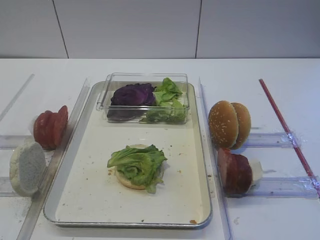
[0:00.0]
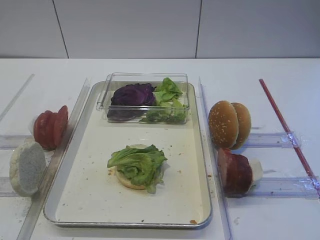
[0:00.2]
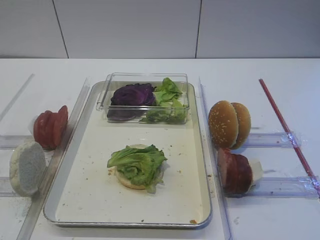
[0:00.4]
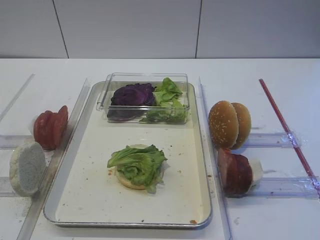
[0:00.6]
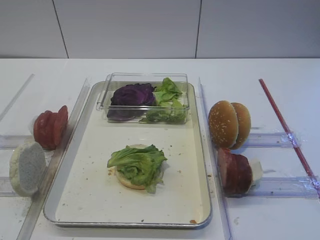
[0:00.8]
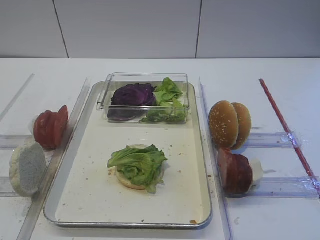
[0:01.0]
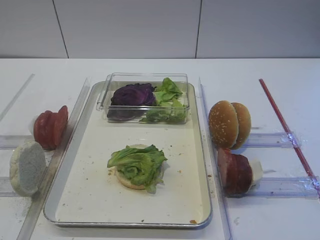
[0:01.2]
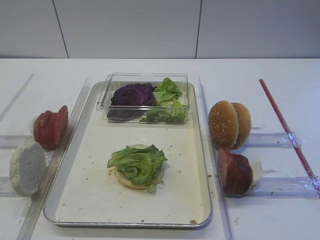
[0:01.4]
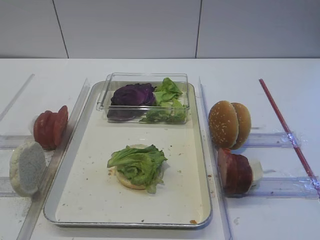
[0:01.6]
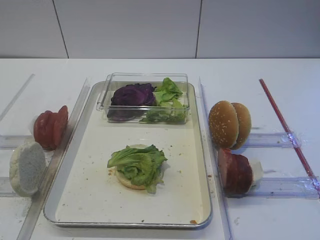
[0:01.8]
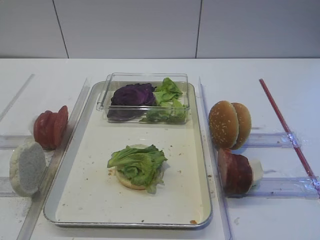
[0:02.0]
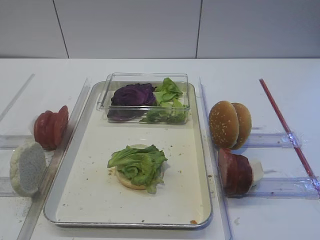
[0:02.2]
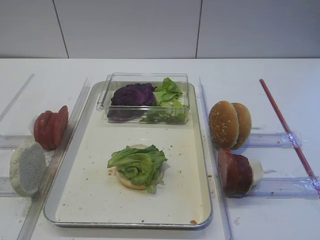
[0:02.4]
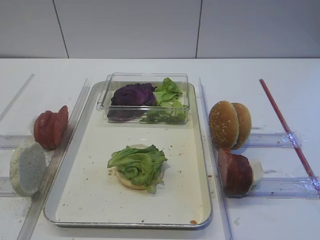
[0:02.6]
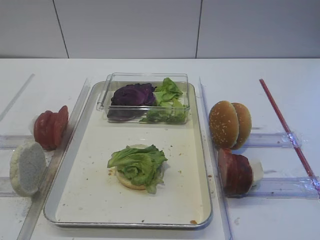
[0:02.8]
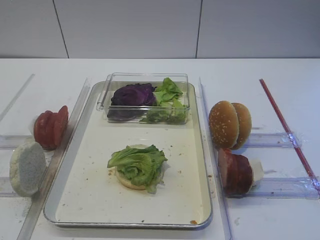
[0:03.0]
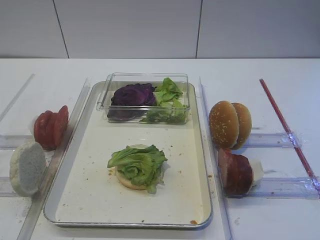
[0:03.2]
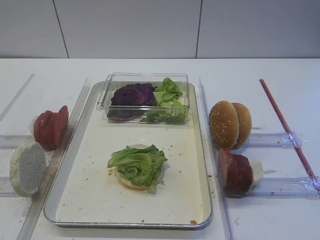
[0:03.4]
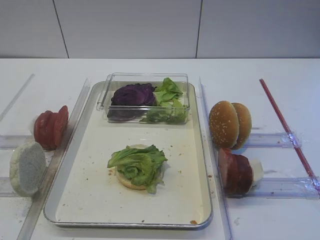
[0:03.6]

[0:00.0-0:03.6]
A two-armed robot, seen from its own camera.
0:01.8 to 0:03.6: Both grippers stay about where they are.

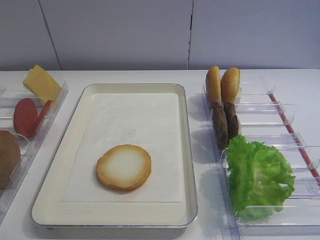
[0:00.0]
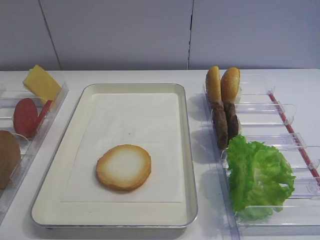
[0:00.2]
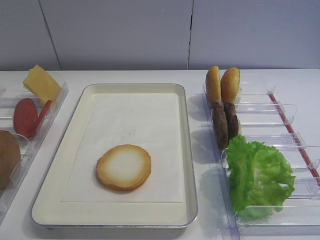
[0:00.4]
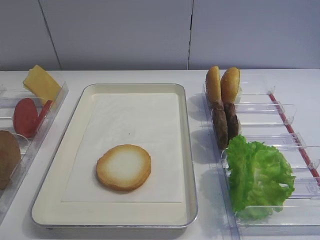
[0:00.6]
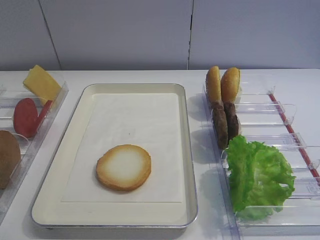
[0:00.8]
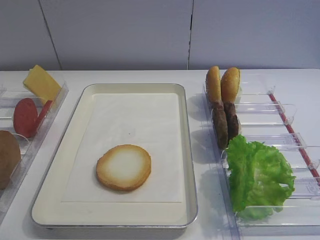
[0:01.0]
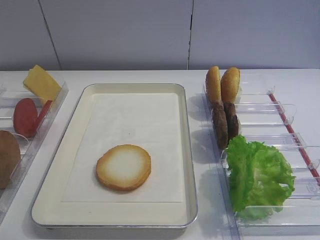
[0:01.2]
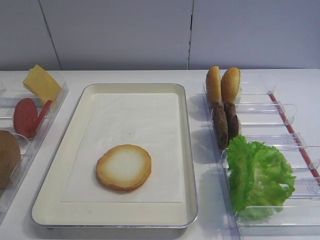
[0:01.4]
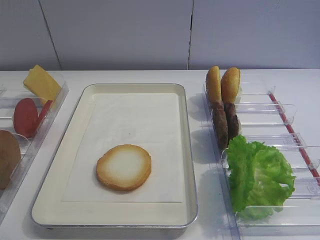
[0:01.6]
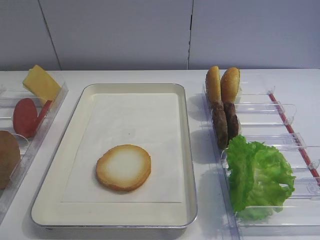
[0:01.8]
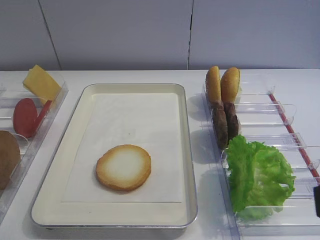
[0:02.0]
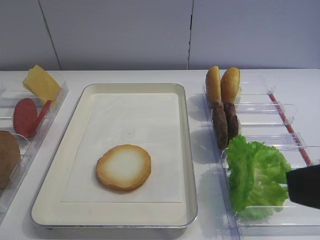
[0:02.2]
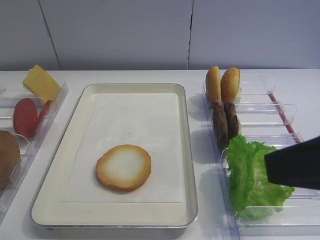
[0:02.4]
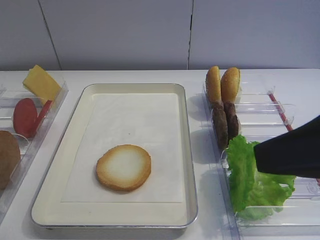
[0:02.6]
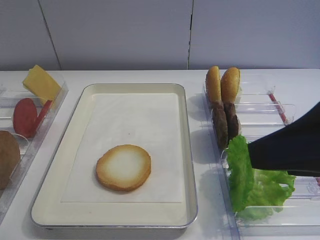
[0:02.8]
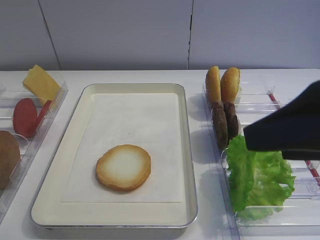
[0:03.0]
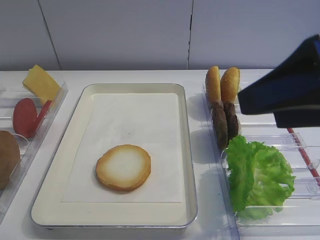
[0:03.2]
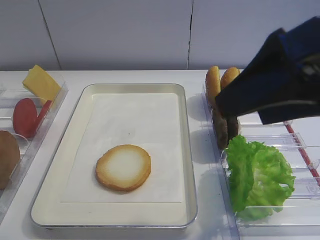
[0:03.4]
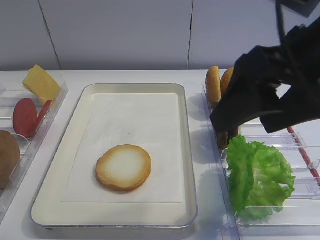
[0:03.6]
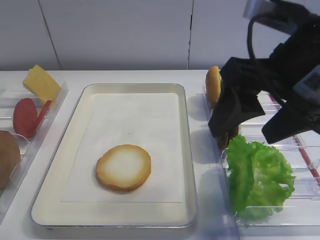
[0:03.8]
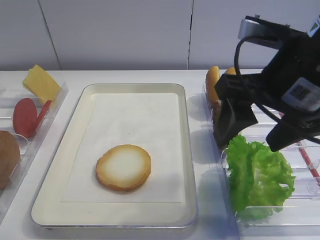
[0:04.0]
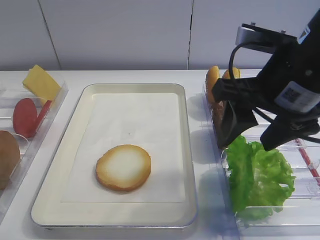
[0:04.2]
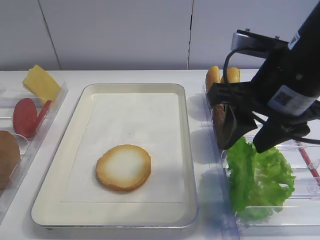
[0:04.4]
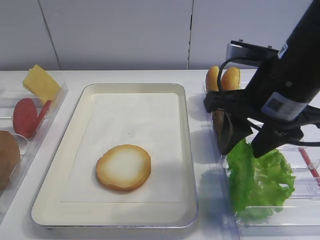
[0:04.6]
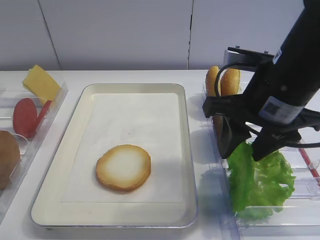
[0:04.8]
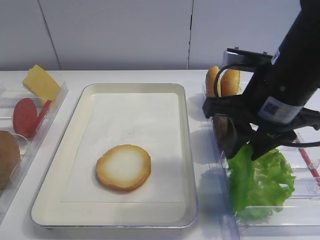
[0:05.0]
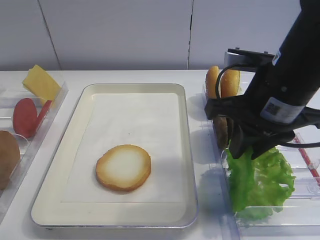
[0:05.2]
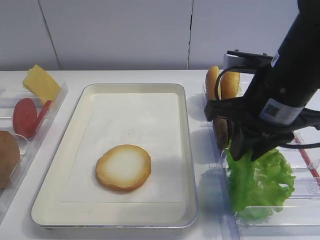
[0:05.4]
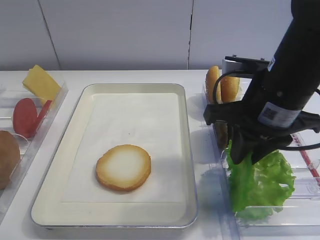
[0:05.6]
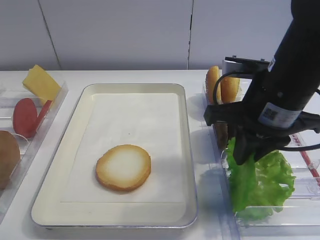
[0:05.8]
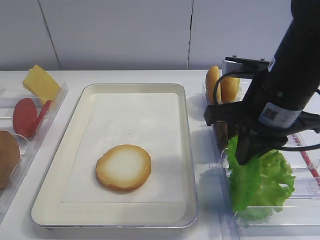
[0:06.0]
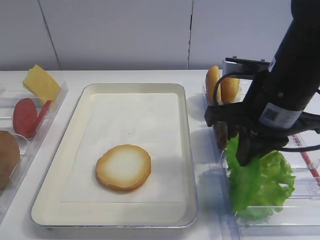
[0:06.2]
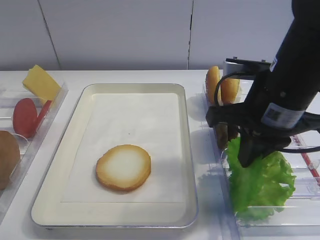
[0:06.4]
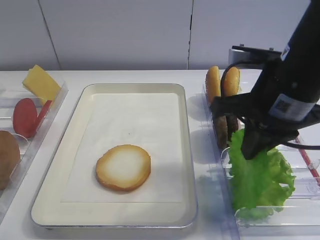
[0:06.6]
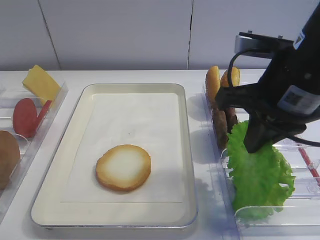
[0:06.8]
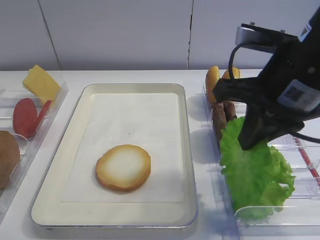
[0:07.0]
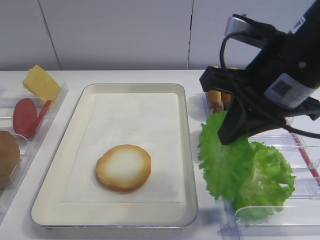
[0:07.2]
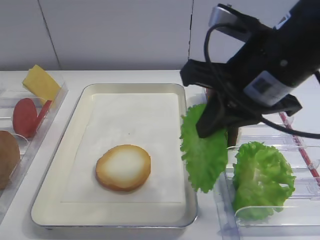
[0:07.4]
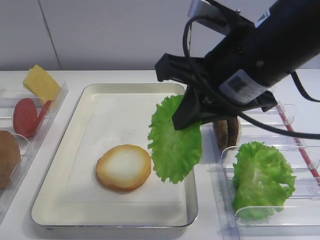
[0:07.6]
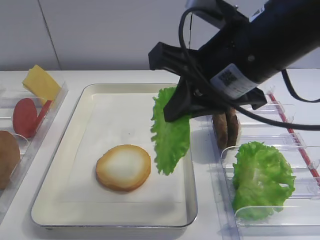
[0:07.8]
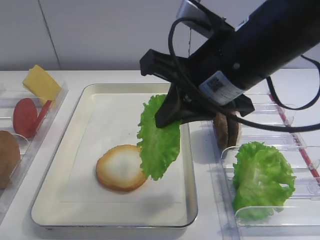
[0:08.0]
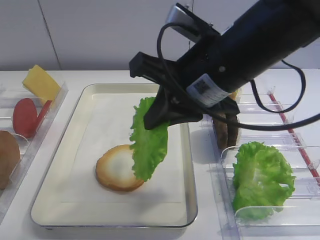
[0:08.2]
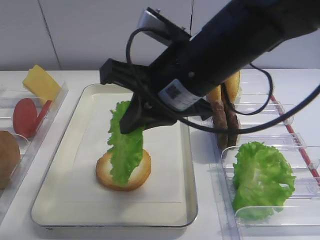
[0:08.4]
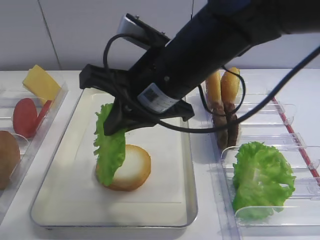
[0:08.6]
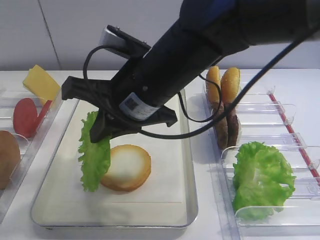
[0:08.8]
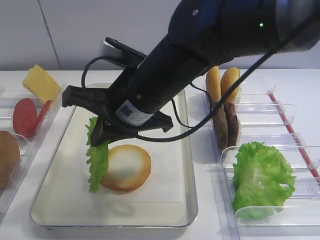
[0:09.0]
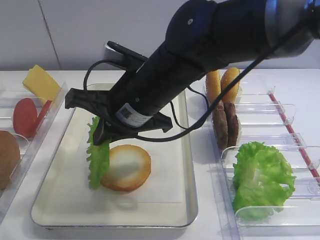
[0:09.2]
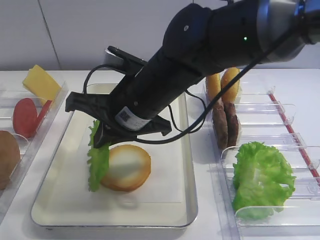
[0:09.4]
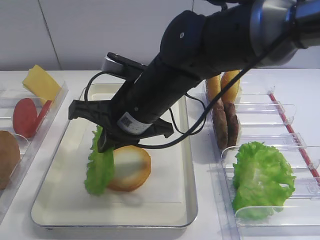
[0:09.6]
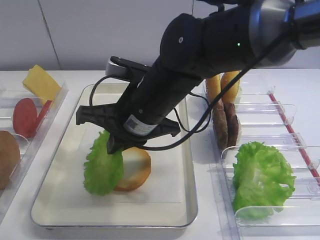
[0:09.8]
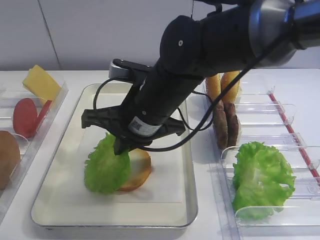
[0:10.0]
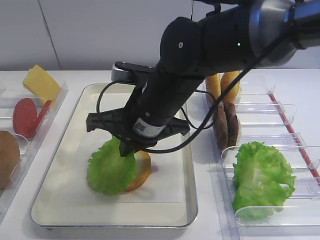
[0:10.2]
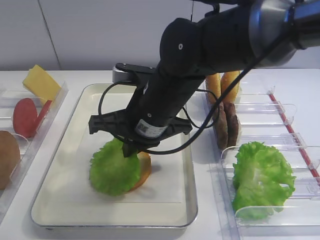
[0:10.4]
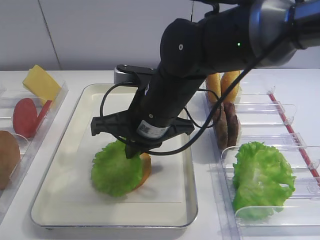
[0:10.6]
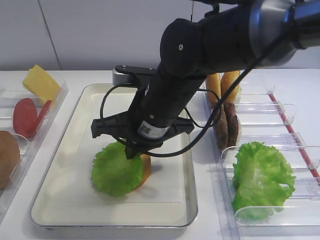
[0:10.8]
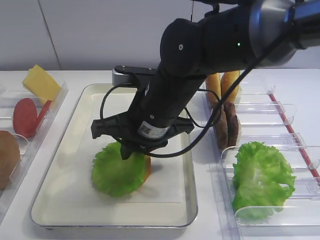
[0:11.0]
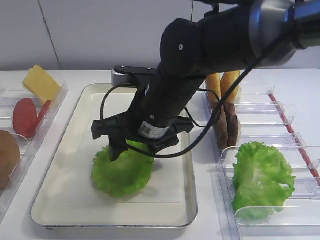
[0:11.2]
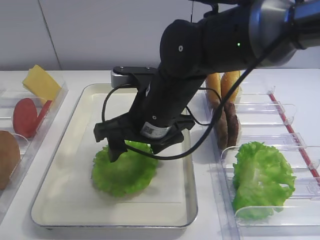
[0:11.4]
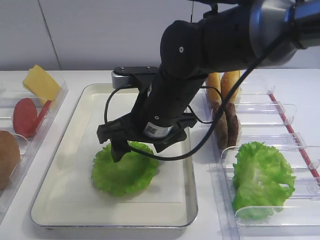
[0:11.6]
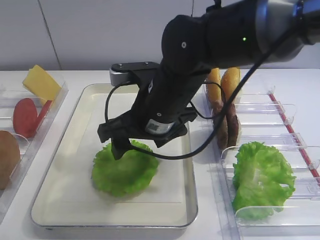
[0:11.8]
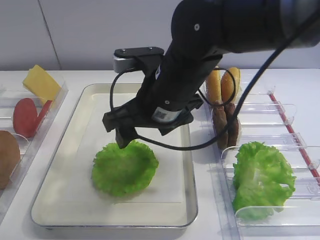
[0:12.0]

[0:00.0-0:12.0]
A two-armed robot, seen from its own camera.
Step, 0:00.0 to 0:07.2: Pick up the lettuce leaf with the right gripper.
0:01.6 to 0:03.0: The right gripper heads forward, covering about 10 cm.
0:03.0 to 0:04.4: The right gripper moves forward and to the left, approximately 10 cm.
0:04.4 to 0:06.0: The right gripper closes its fingers.
0:06.0 to 0:07.6: The right gripper goes about 5 cm upward.
0:07.6 to 0:09.0: The right gripper moves to the left and downward, approximately 15 cm.
0:09.0 to 0:10.4: There are only small adjustments of the grippers.
0:10.4 to 0:12.0: The right gripper opens its fingers.

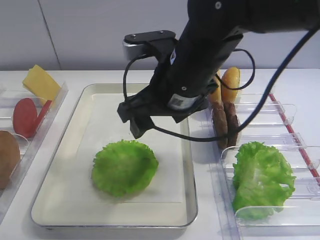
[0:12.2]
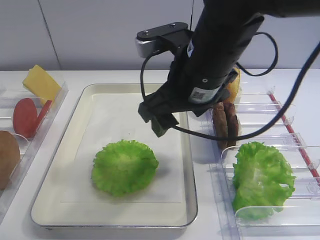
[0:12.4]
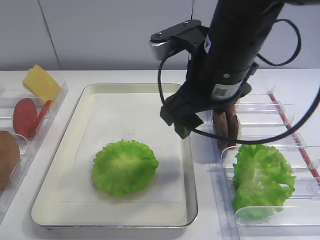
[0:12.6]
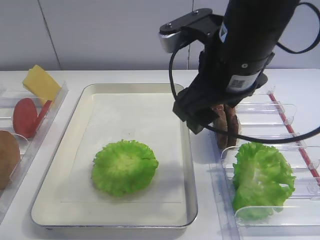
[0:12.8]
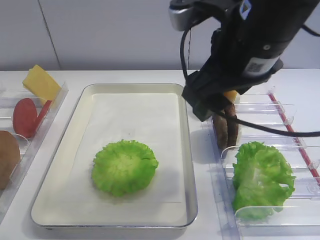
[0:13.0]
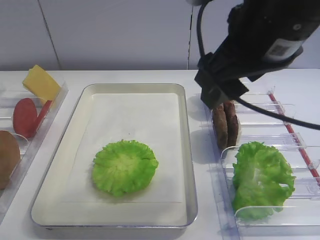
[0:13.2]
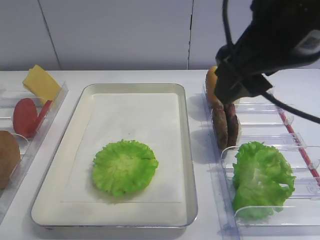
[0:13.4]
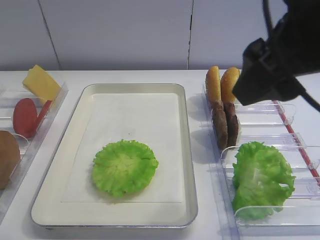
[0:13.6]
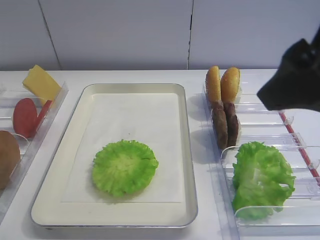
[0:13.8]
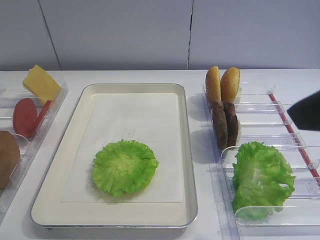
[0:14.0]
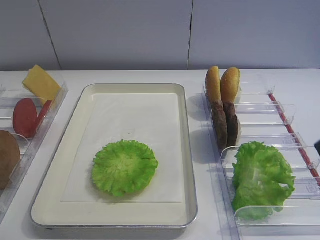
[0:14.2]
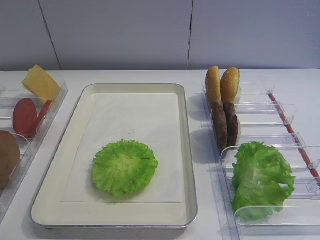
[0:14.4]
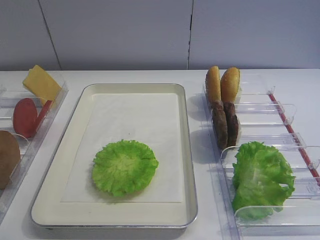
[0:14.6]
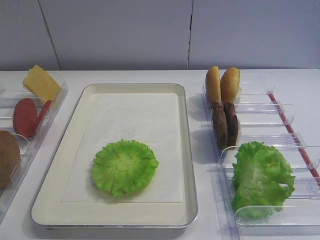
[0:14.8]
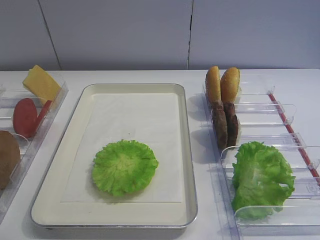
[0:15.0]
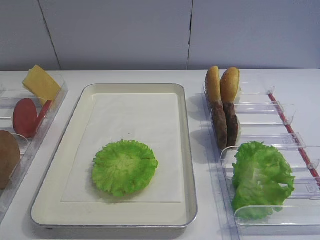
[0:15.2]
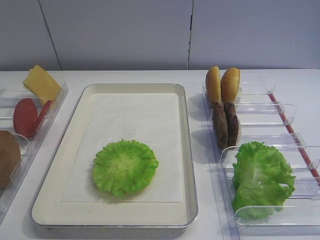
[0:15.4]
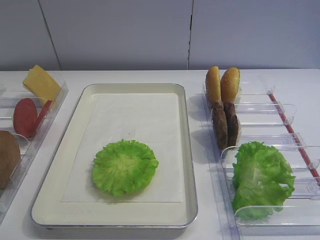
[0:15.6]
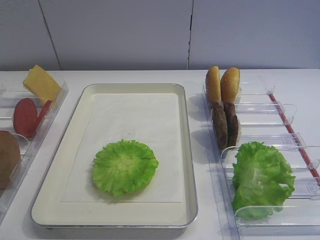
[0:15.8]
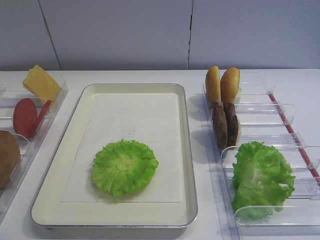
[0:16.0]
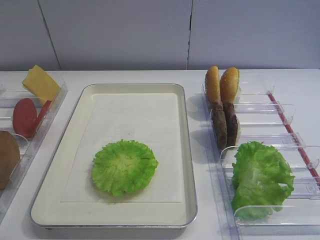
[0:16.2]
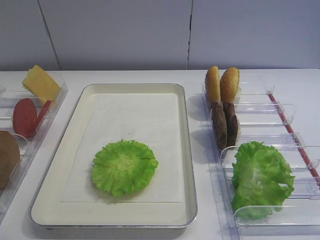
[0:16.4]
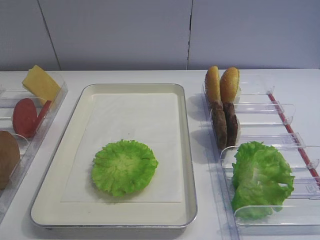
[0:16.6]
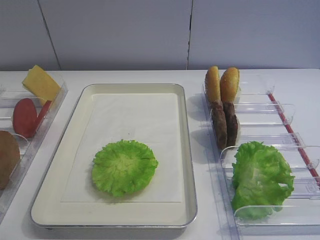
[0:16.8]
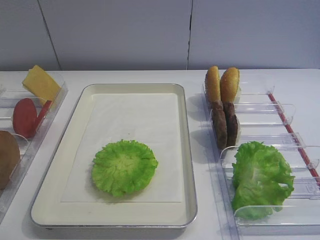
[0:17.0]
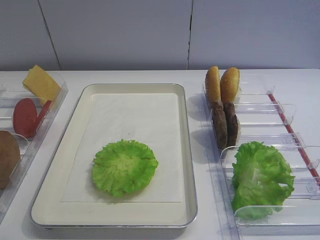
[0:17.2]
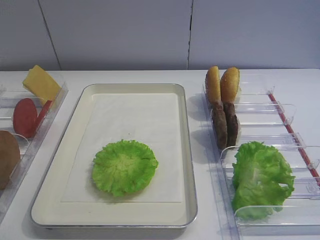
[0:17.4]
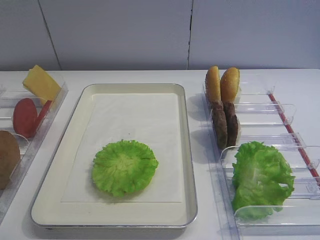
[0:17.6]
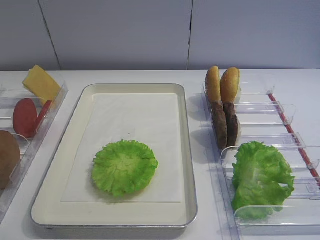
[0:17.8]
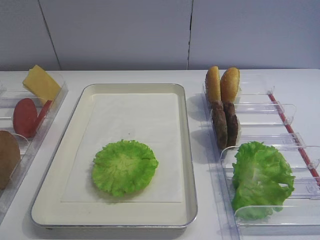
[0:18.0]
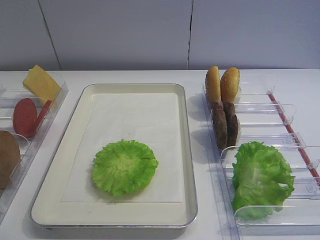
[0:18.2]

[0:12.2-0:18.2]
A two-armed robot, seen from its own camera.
0:12.2 to 0:13.8: The right gripper shifts roughly 20 cm to the right, backward and upward.
0:13.8 to 0:15.2: The right gripper heads backward, to the right and downward, covering about 20 cm.

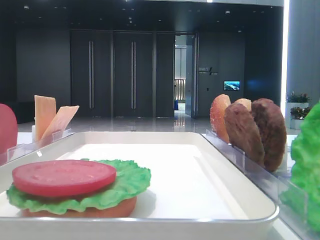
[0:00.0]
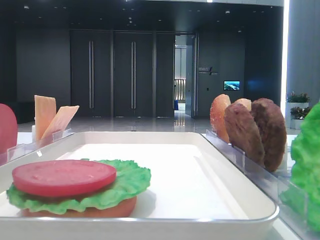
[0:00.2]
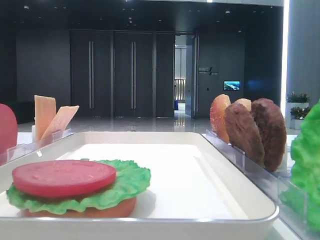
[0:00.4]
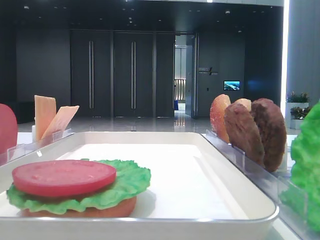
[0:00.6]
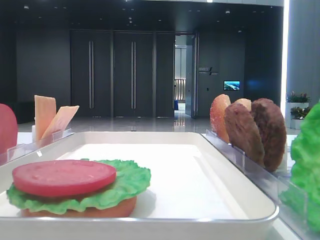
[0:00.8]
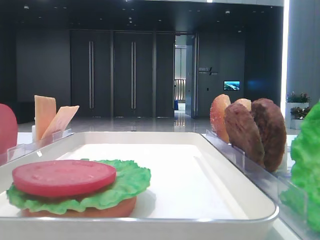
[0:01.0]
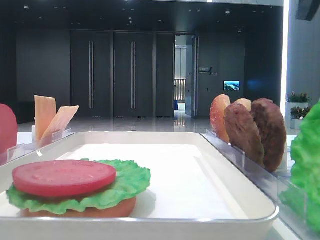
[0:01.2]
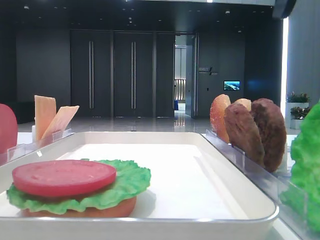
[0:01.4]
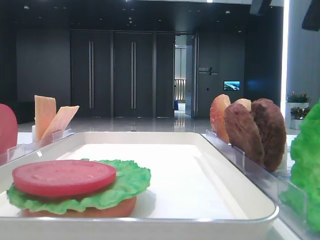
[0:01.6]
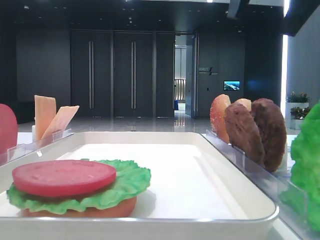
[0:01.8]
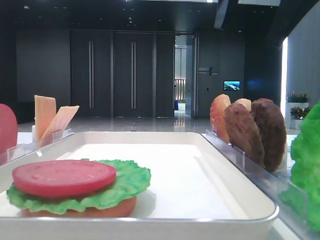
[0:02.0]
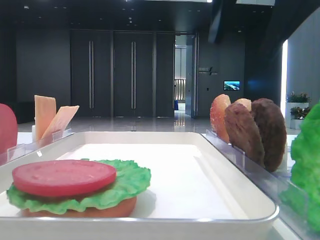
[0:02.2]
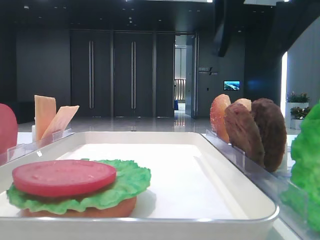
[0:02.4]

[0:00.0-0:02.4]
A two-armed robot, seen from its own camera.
0:01.2 to 0:02.4: The right gripper goes roughly 10 cm to the left.
